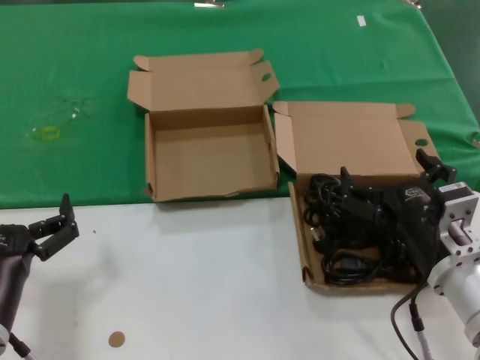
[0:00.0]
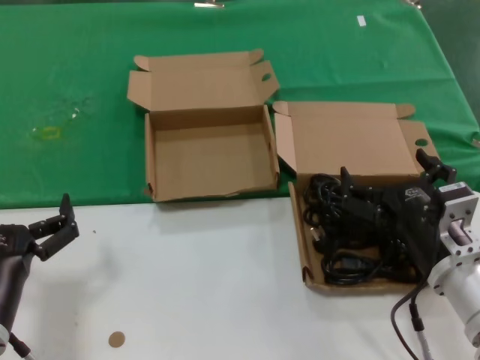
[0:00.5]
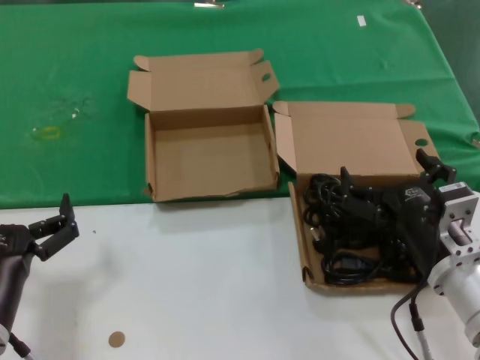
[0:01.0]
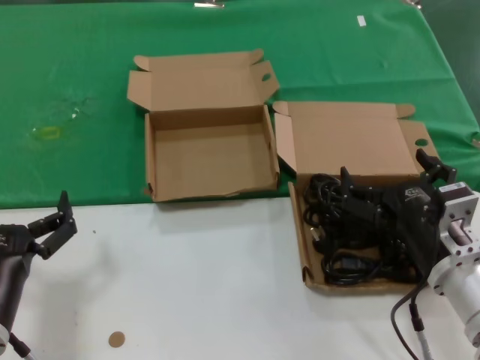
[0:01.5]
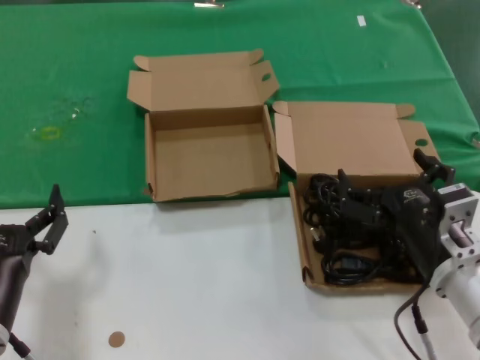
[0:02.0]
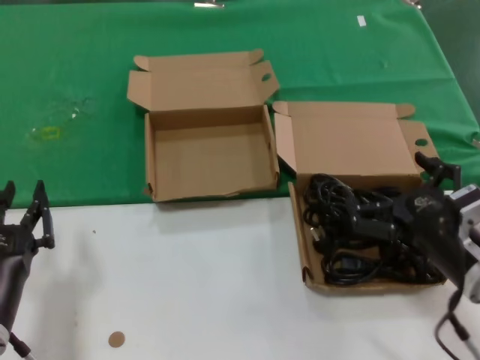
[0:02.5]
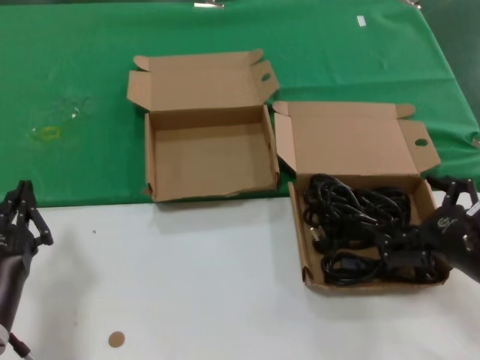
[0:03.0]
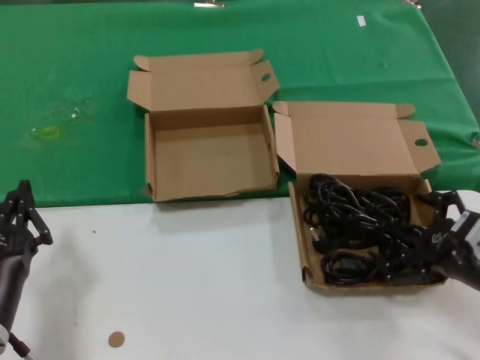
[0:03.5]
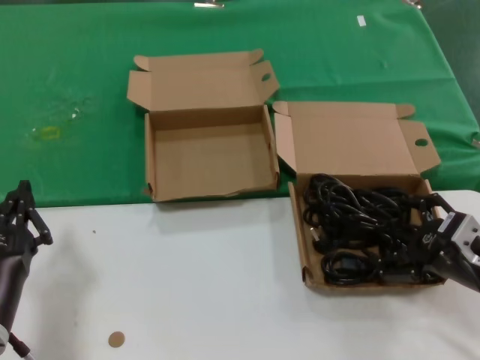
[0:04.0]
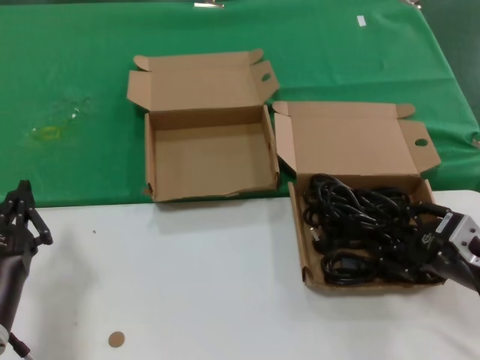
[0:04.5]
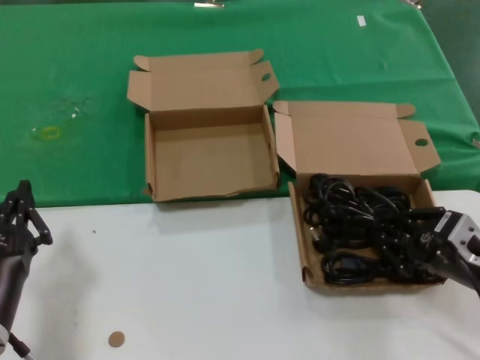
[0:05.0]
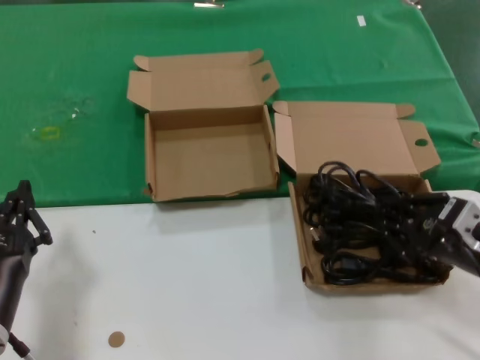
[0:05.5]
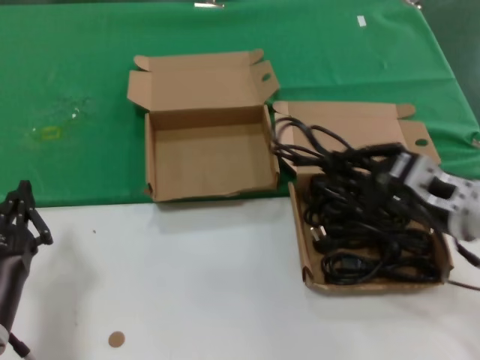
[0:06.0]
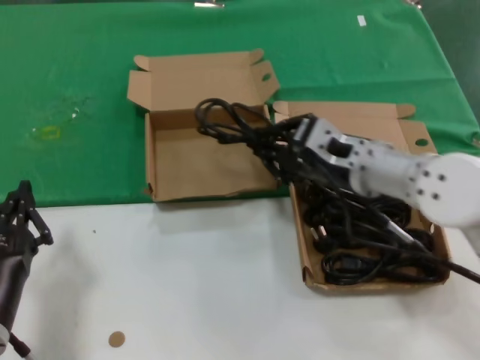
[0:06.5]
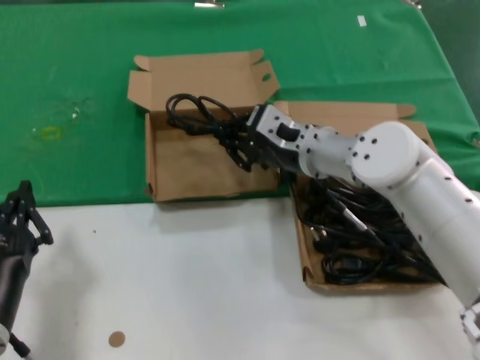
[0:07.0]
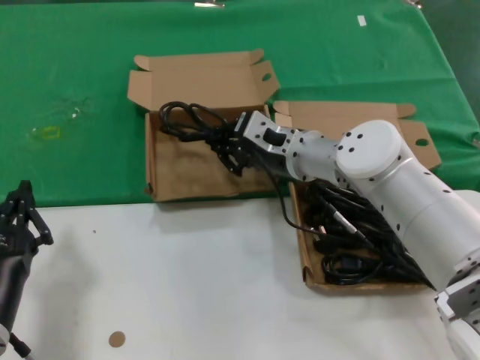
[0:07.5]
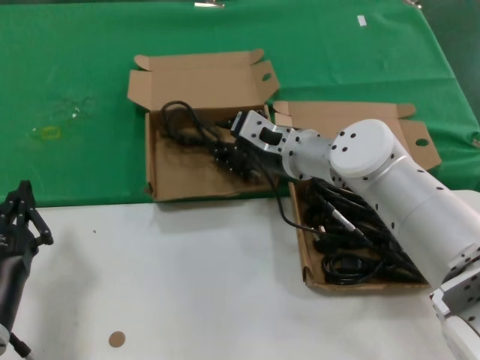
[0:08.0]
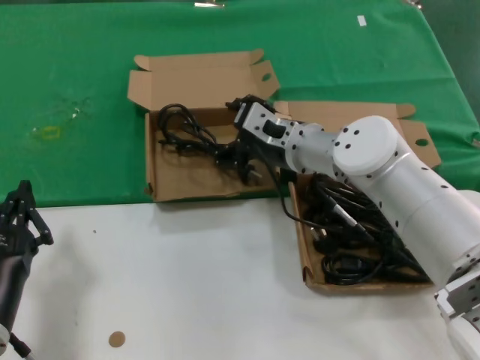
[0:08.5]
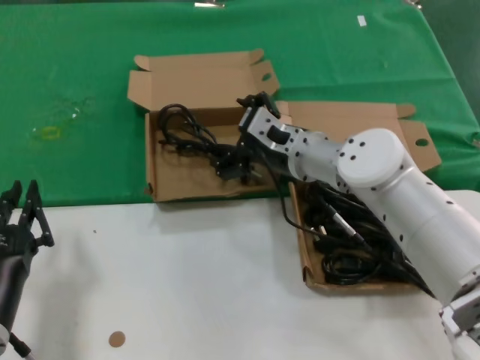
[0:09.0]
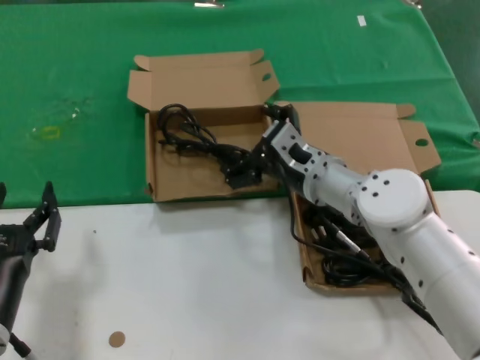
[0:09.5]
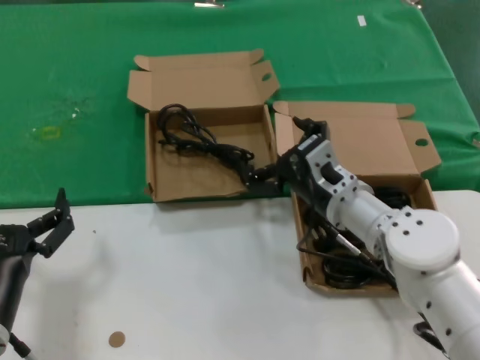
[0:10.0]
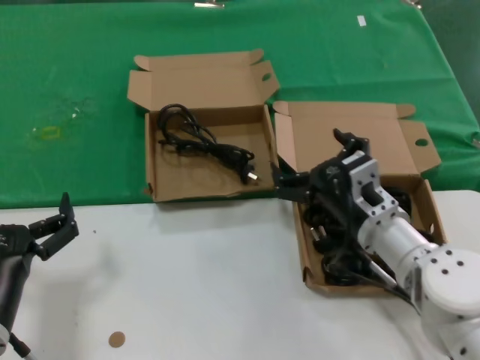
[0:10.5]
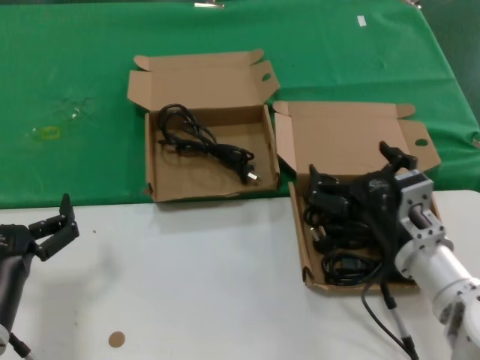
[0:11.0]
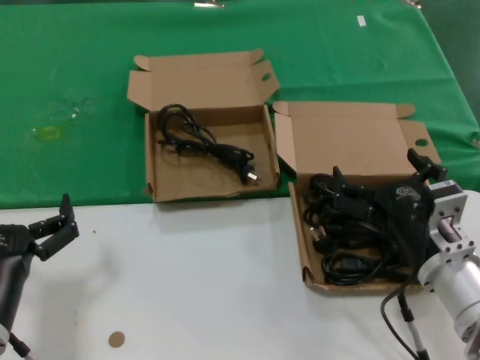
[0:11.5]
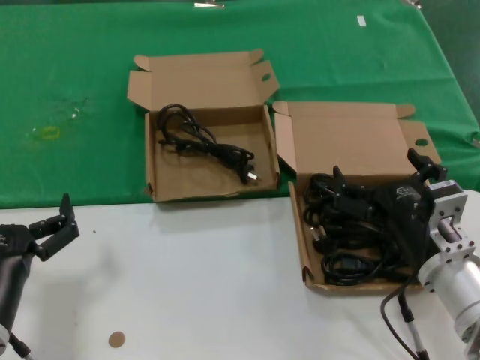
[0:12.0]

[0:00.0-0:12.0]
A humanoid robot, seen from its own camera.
Task of the whole recording: take the parts from the box containing them and put them into an empty box.
Step, 0:00.0 to 0:04.5: Grasp the data cable.
Step, 0:05.0 to 0:08.0: Place the data cable in the another box.
0:00.0 to 0:02.0: Neither hand changes place.
0:02.0 to 0:04.0: The right hand moves to the right, some 10 cm.
0:04.0 to 0:06.0: The right hand shifts approximately 5 cm upward.
0:06.0 to 0:08.0: The right hand travels forward and to the left by about 25 cm.
0:08.0 to 0:10.0: The right hand is displaced backward and downward by approximately 10 cm.
0:10.0 to 0:12.0: The right hand shifts about 15 cm backward and to the right.

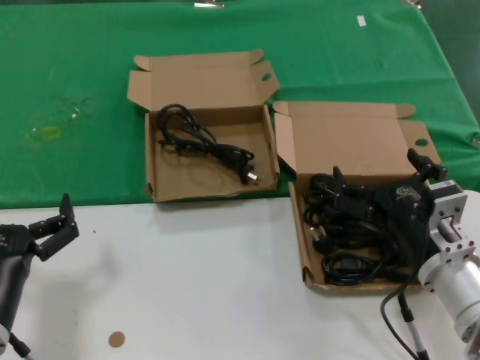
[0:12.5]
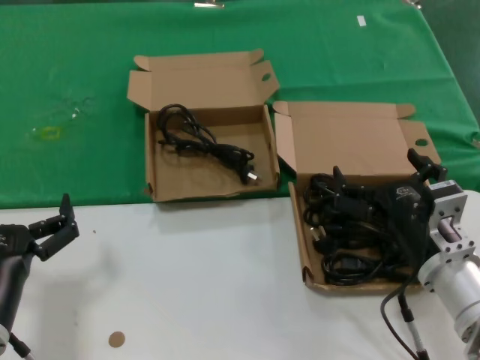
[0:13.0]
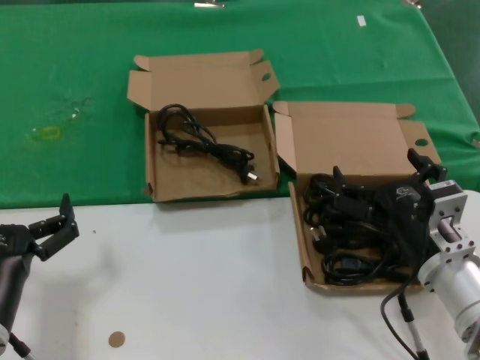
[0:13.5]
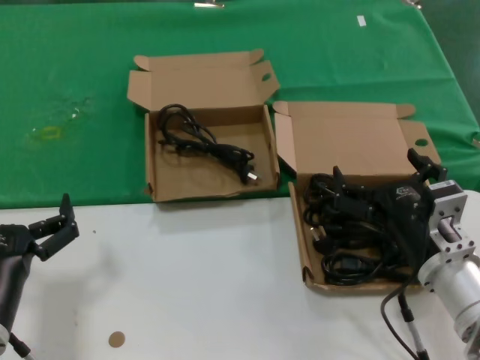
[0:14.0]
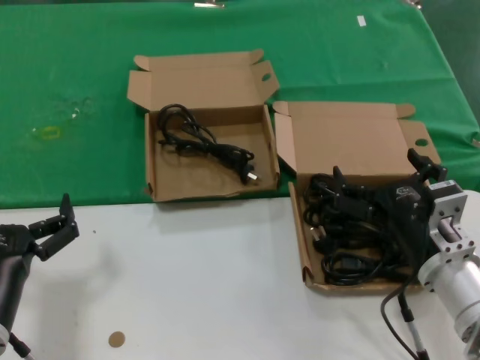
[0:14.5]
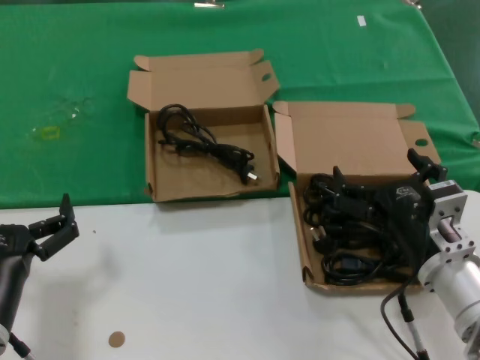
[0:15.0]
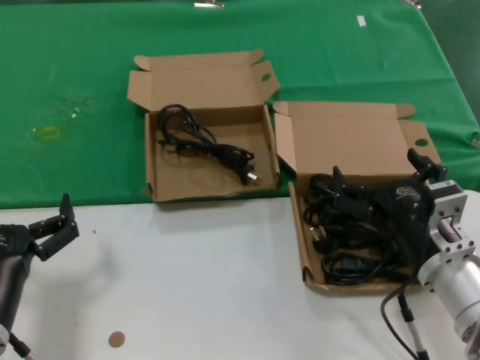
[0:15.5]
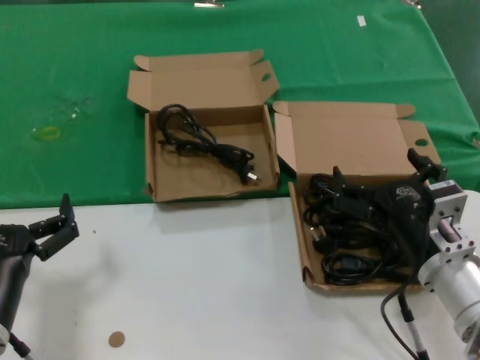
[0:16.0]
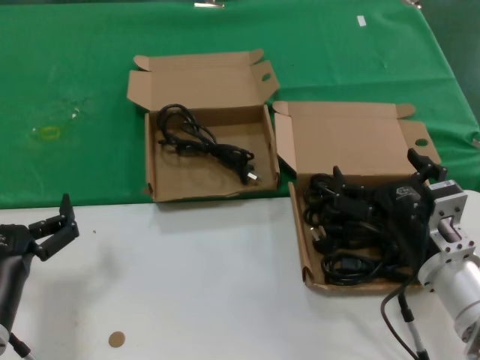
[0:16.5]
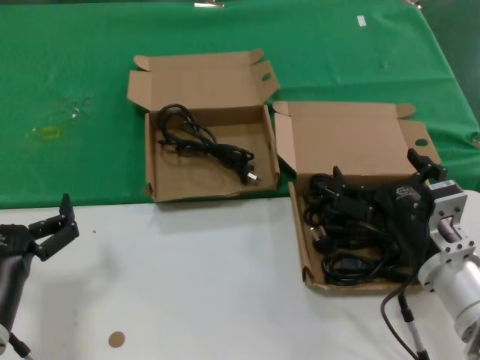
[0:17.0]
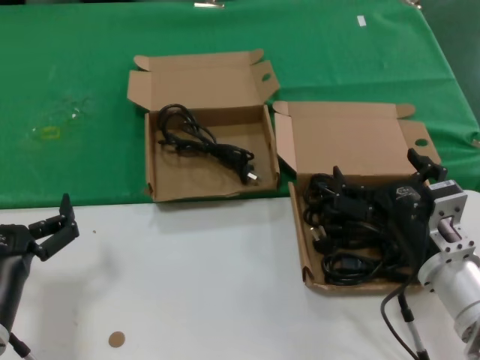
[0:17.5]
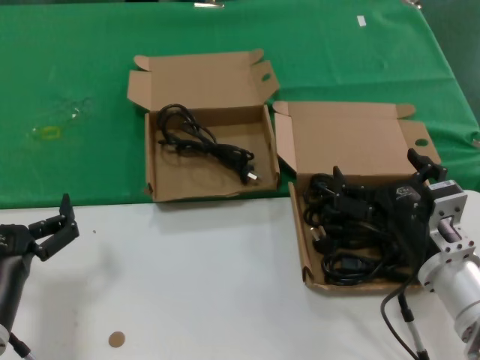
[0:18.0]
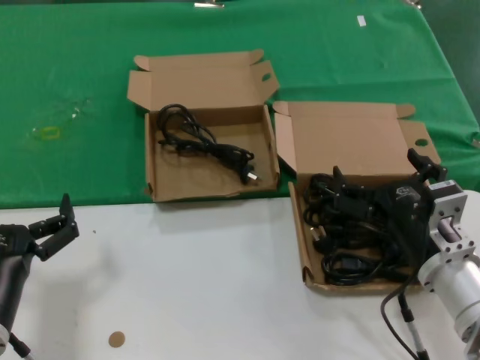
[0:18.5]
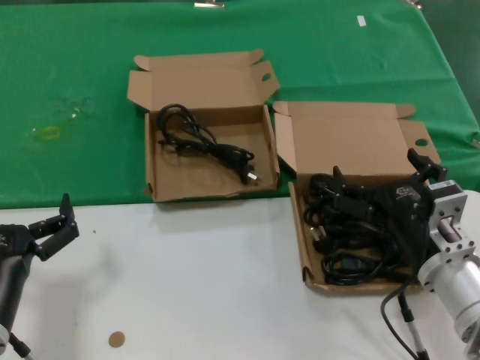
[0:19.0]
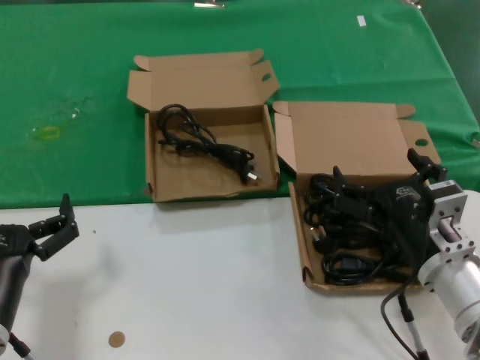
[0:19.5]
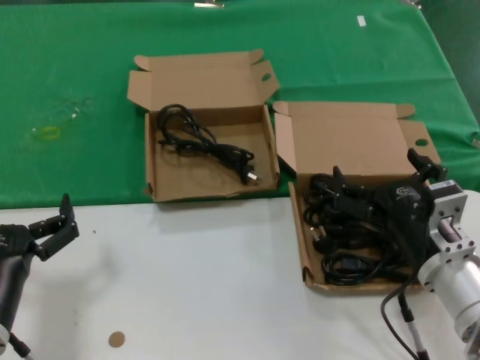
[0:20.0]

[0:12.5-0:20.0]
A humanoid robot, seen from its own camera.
Task of the whole recording: take the parts from the box containing them and put them into an empty box.
0:12.5 to 0:20.0: The two hands keep their place.

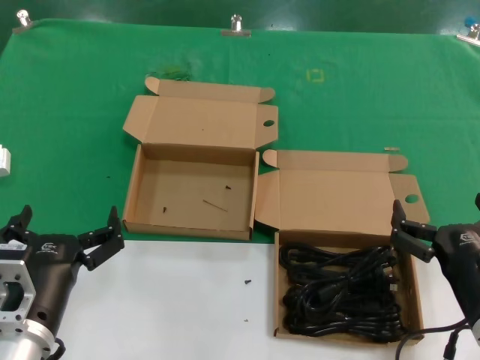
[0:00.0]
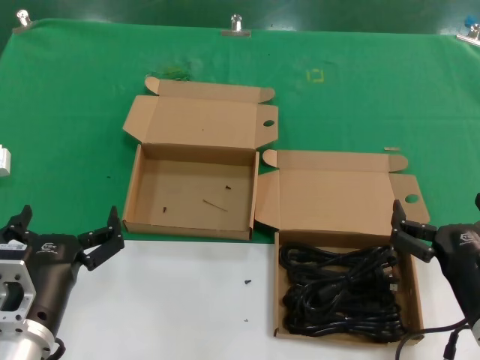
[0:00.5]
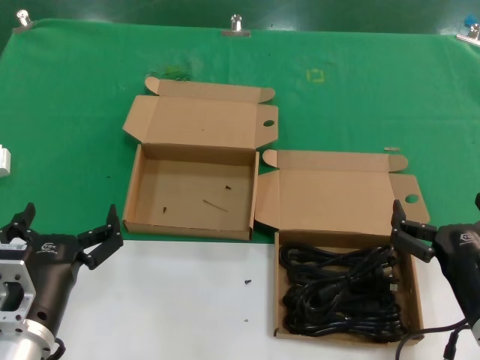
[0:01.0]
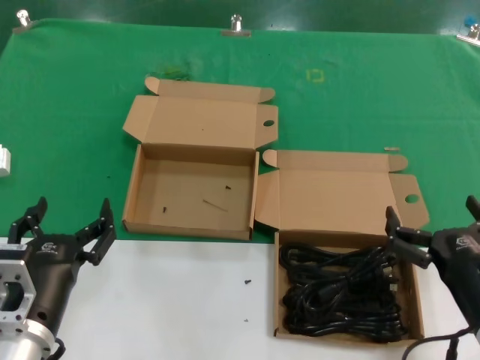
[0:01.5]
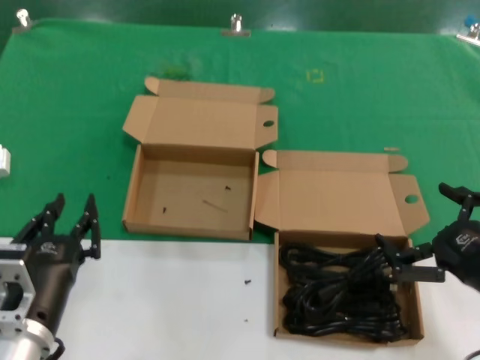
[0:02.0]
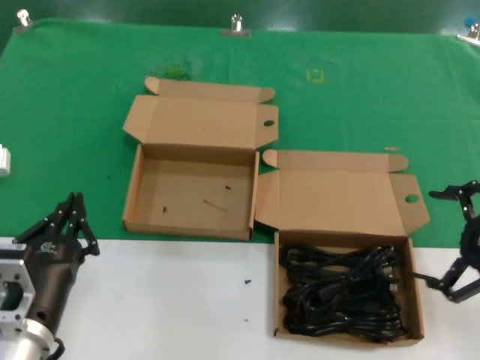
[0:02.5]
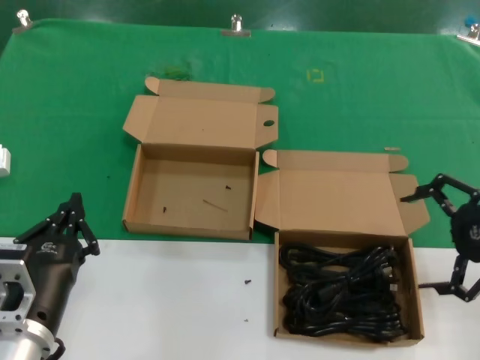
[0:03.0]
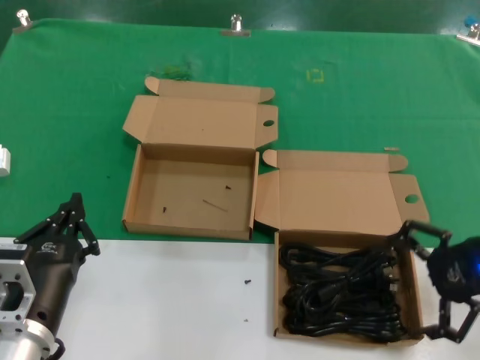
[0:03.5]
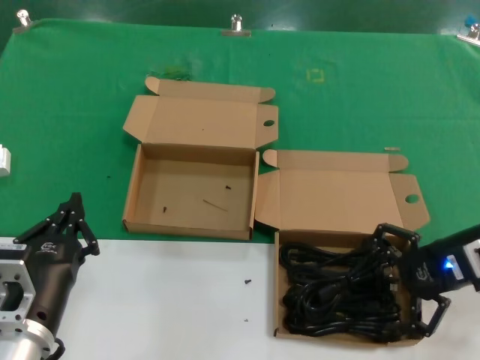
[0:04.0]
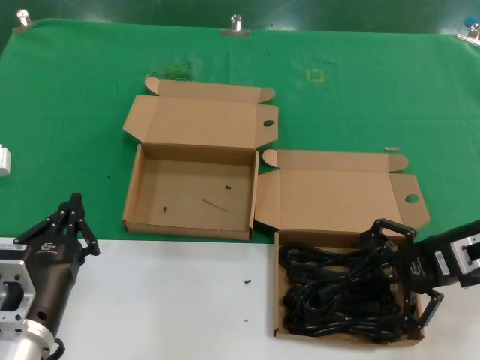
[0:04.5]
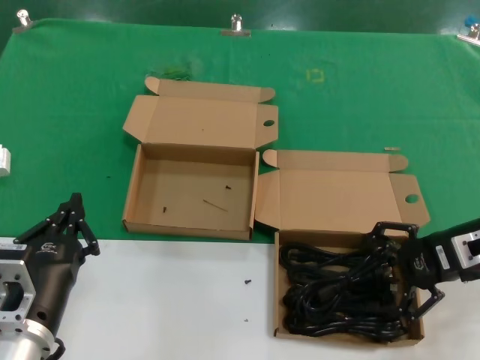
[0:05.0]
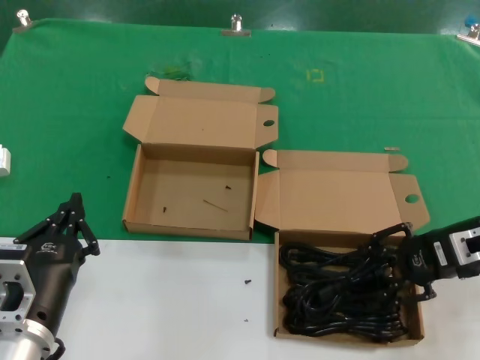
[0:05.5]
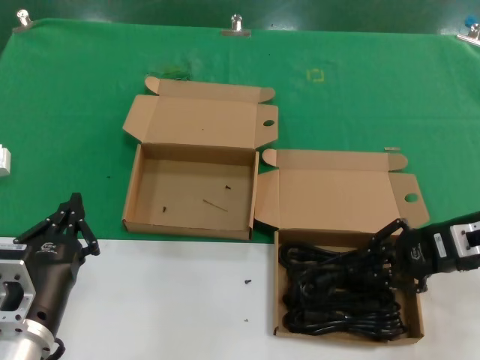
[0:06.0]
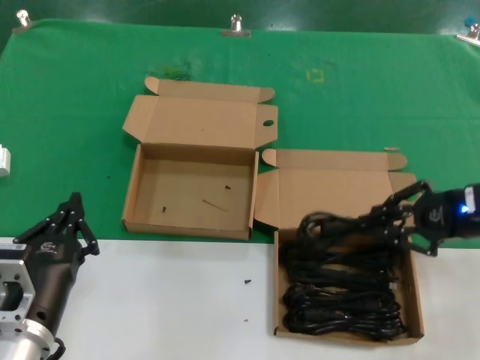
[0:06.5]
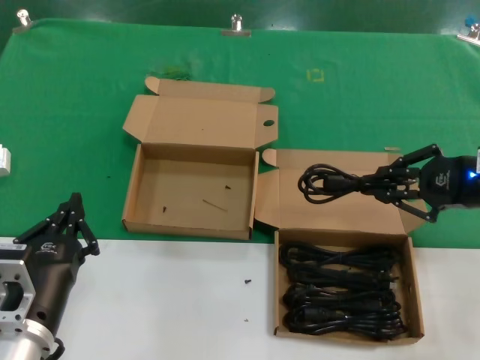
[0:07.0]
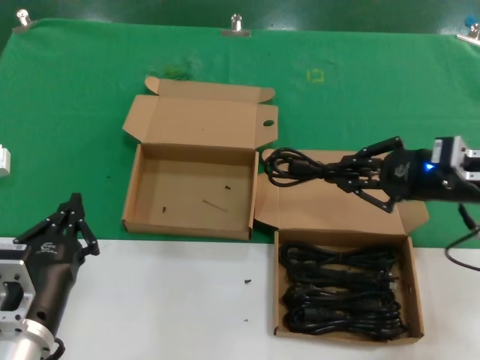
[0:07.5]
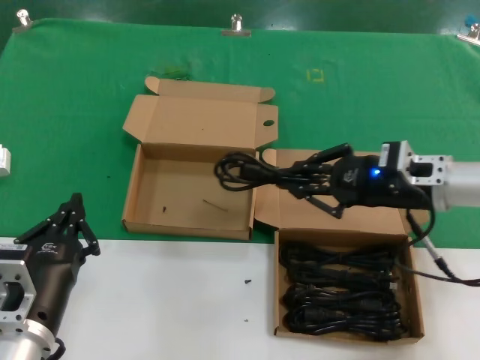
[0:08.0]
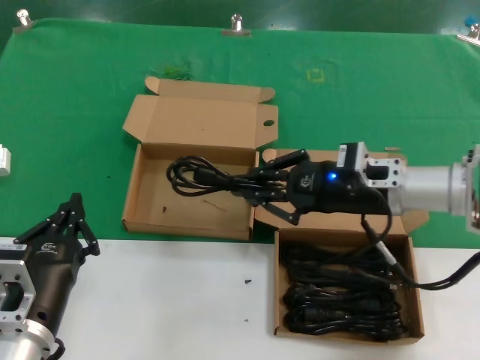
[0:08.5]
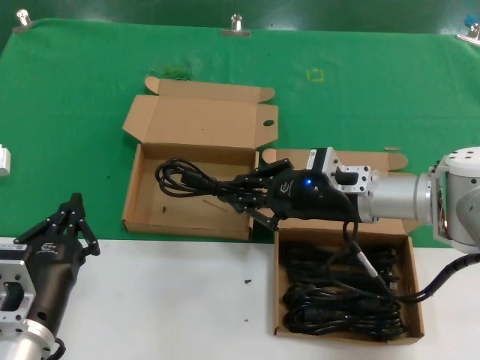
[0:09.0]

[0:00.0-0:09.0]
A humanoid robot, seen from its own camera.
Task of the whole recording: take the parts from the box containing them and put them into an empty box.
Step, 0:00.0 to 0:05.5: Grasp the data cable.
0:00.0 to 0:02.0: The right hand is displaced to the right by some 5 cm.
0:02.0 to 0:04.5: The right hand shifts some 15 cm forward.
0:04.5 to 0:07.0: The right hand heads upward, covering roughly 5 cm.
0:07.0 to 0:09.0: The right hand heads to the left, covering approximately 20 cm.
